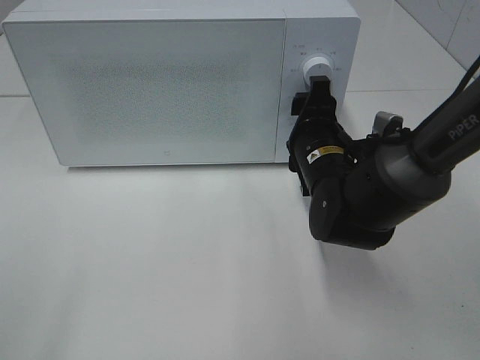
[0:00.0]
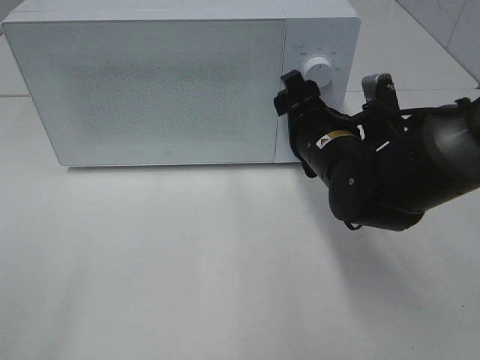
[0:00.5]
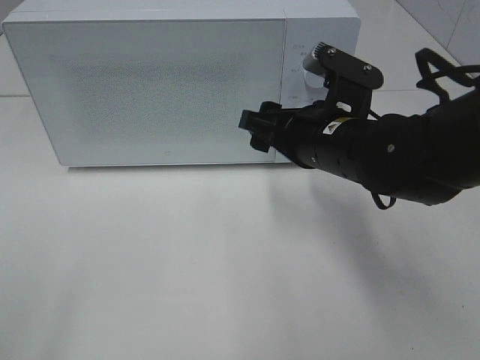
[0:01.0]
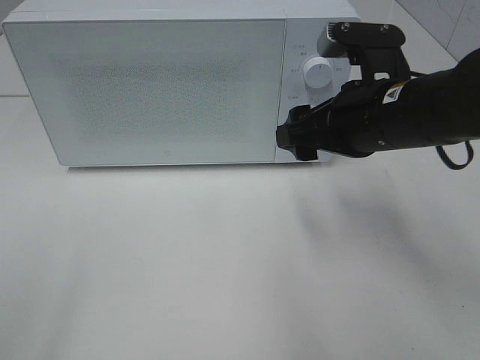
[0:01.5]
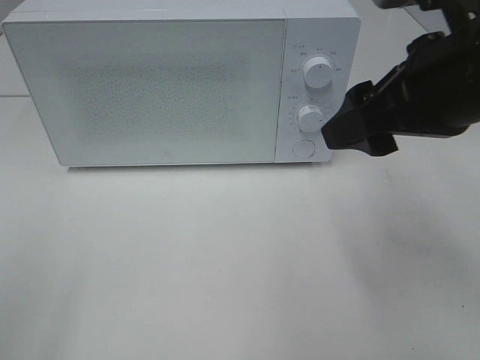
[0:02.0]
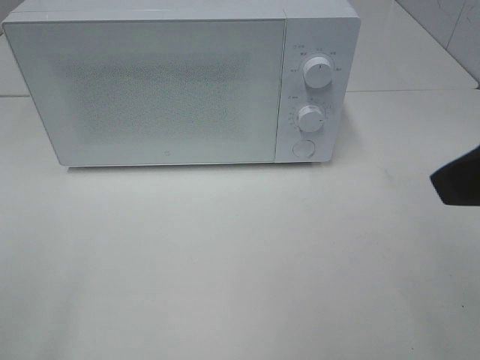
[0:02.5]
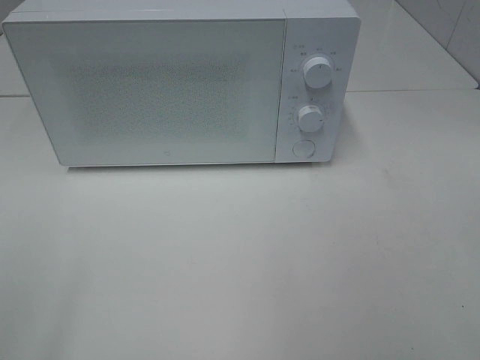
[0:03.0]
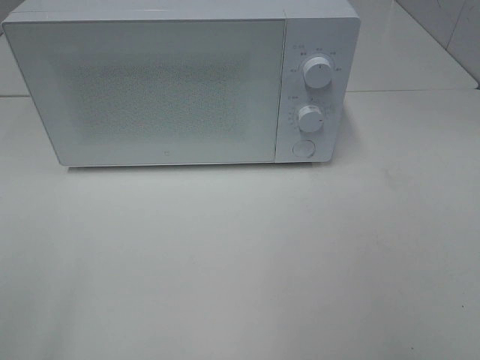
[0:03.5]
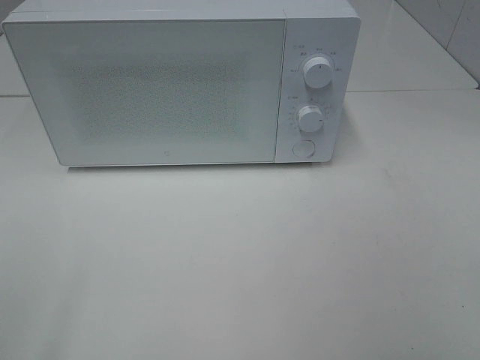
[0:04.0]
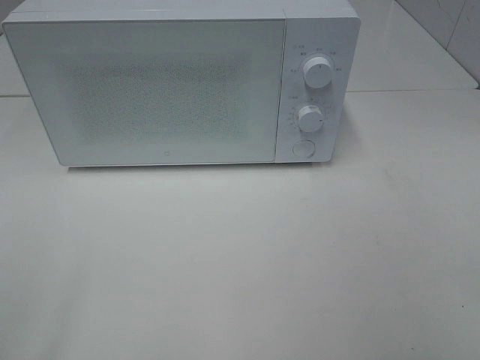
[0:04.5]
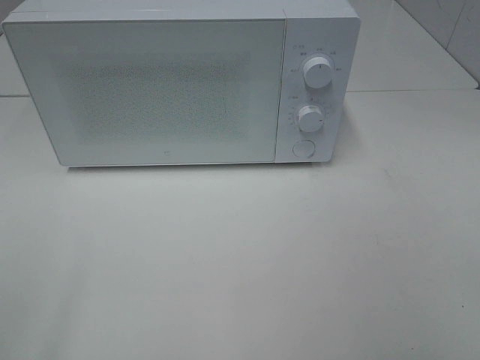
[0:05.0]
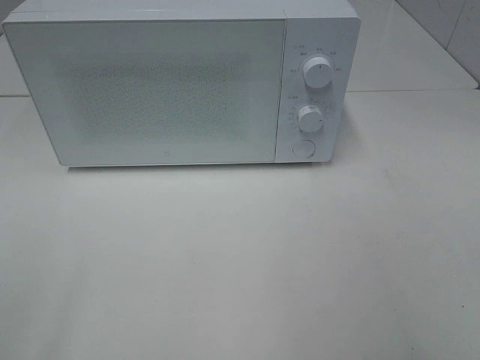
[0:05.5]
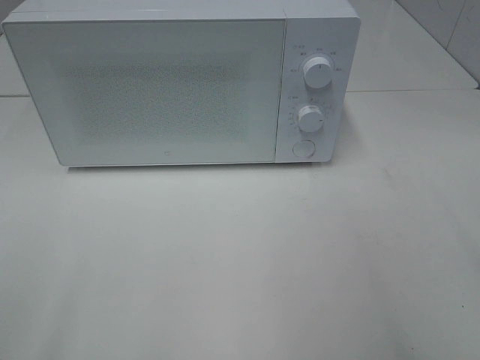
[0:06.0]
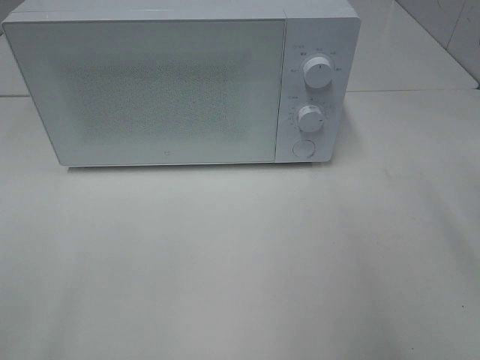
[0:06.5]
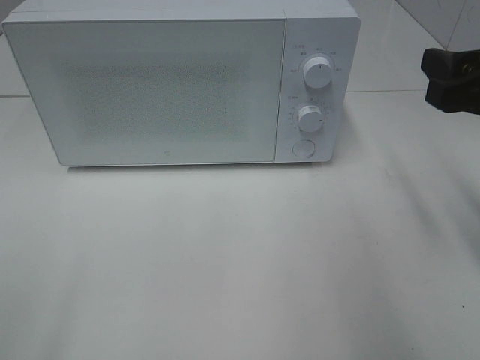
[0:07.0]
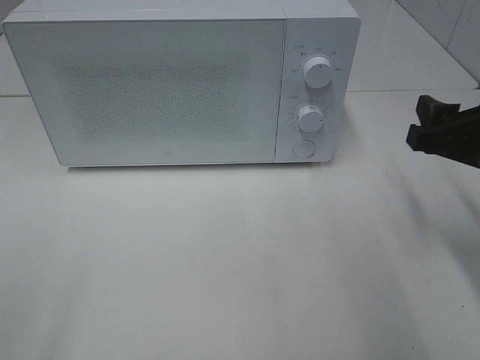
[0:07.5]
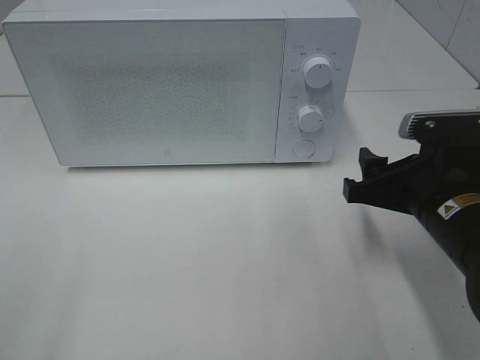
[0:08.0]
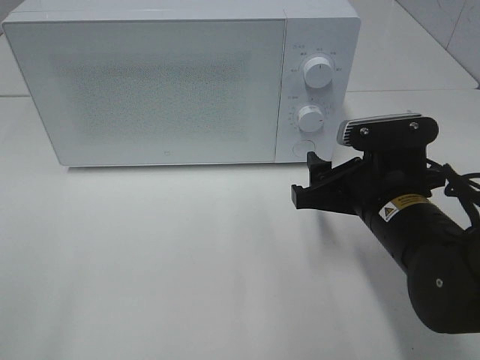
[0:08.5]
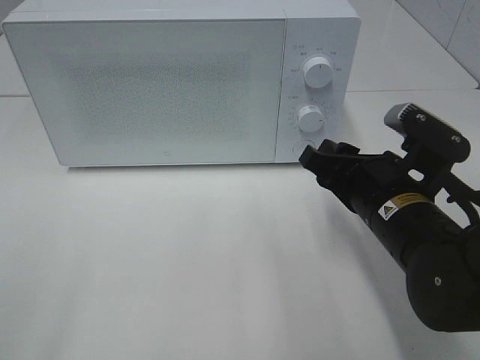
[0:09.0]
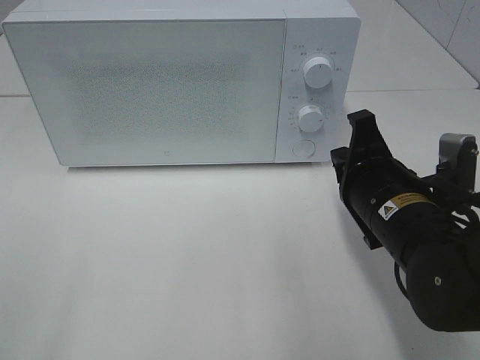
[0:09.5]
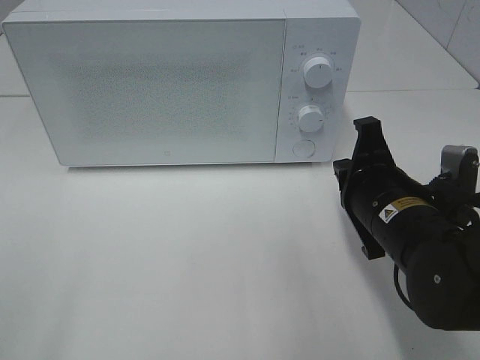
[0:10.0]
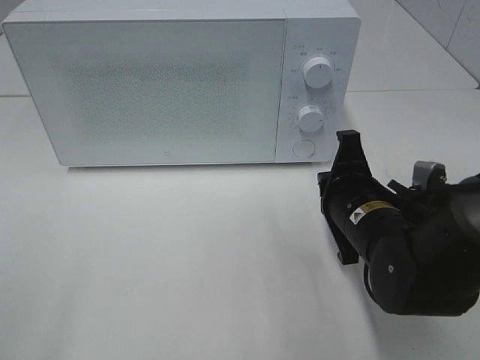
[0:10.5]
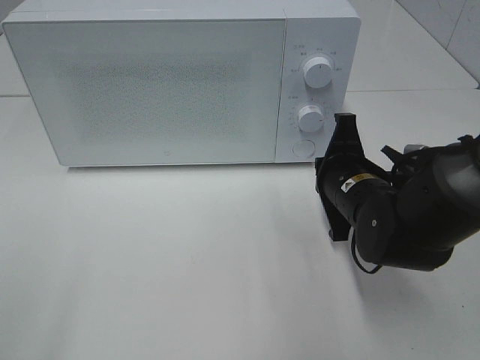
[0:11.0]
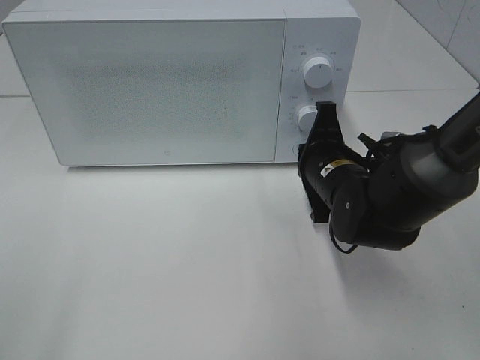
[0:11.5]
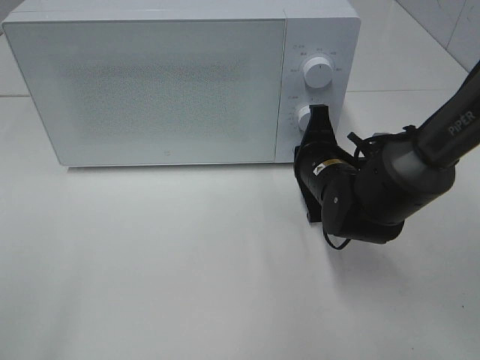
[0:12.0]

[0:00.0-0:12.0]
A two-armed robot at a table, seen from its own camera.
Task of the whole recording: Heat the burger.
0:00.0 to 0:02.0: The right gripper heads upward and backward, covering approximately 20 cm.
0:02.0 to 0:04.0: The right gripper is displaced backward and to the right by about 25 cm.
0:06.0 to 0:08.0: The right gripper shifts roughly 25 cm downward, forward and to the left.
0:08.0 to 0:10.0: The right gripper closes up.
0:10.0 to 0:12.0: The right gripper moves forward, approximately 10 cm.

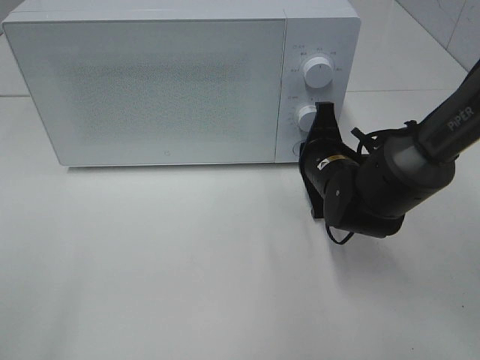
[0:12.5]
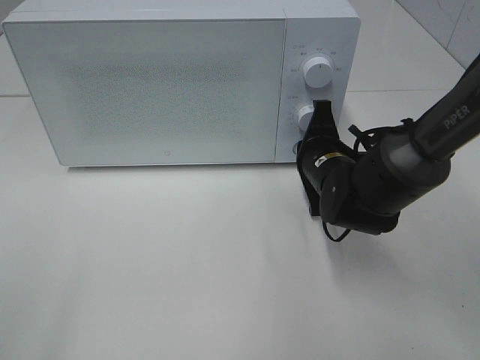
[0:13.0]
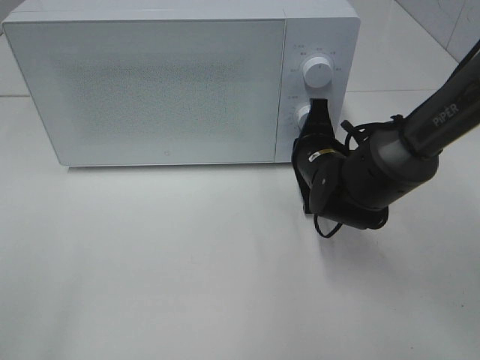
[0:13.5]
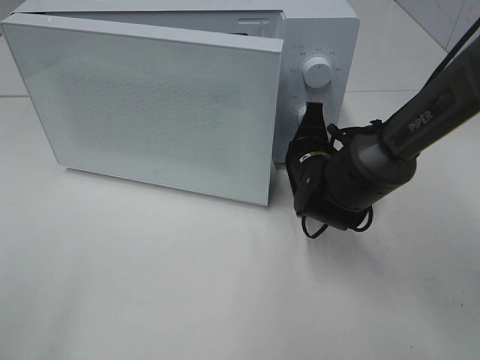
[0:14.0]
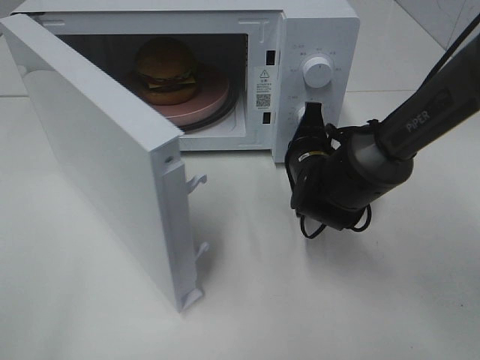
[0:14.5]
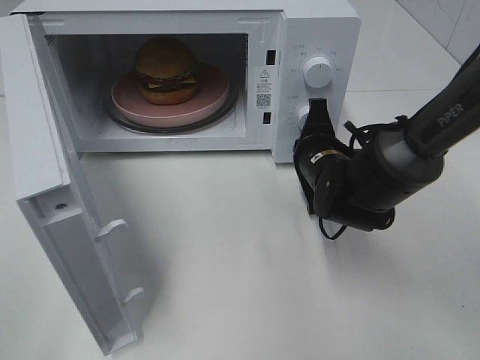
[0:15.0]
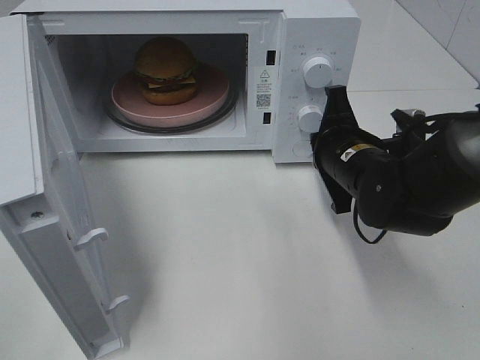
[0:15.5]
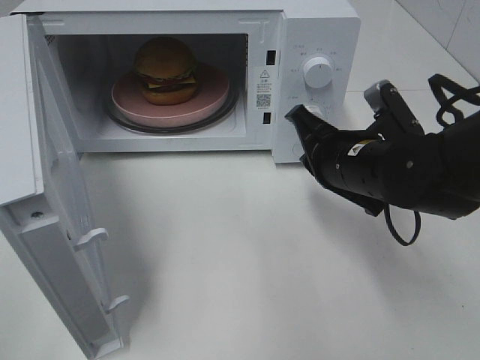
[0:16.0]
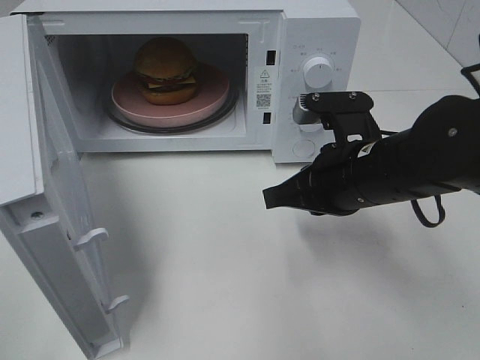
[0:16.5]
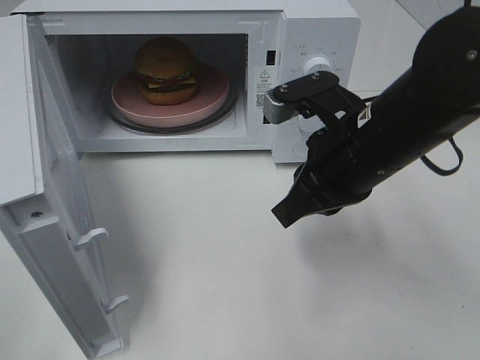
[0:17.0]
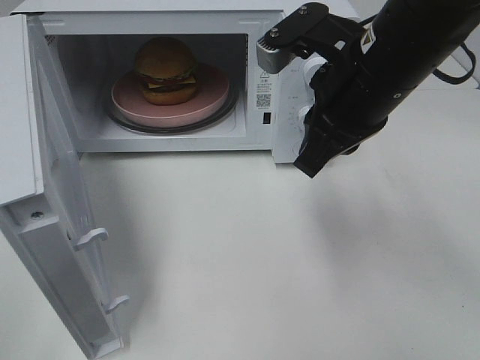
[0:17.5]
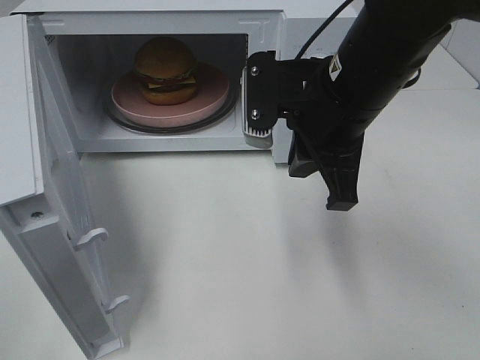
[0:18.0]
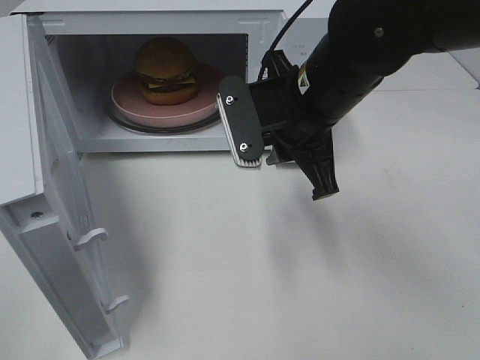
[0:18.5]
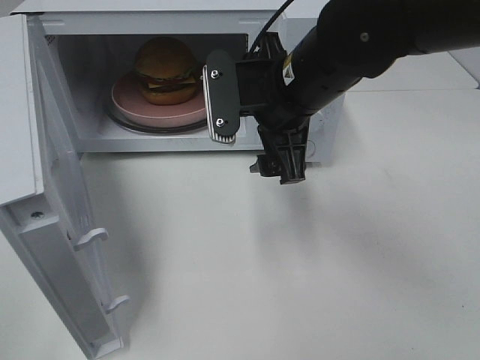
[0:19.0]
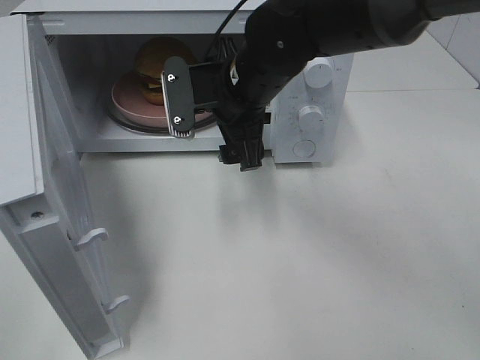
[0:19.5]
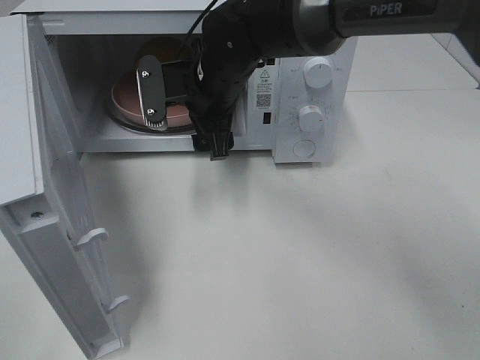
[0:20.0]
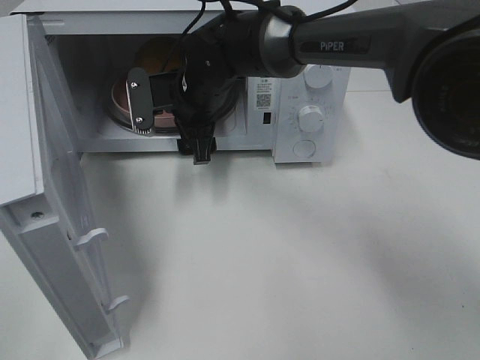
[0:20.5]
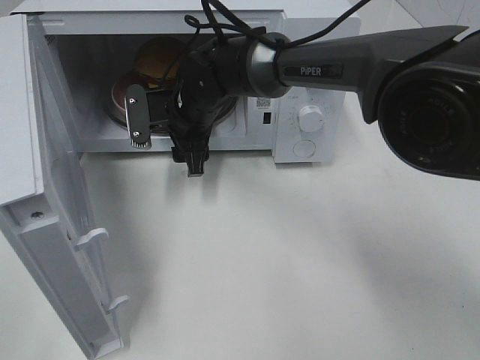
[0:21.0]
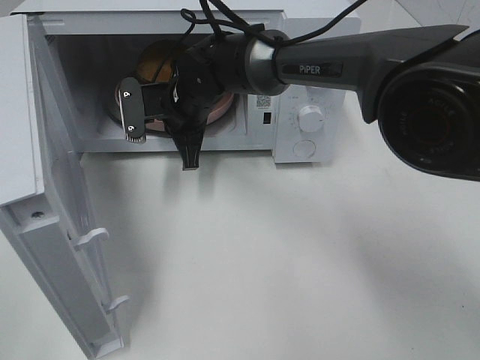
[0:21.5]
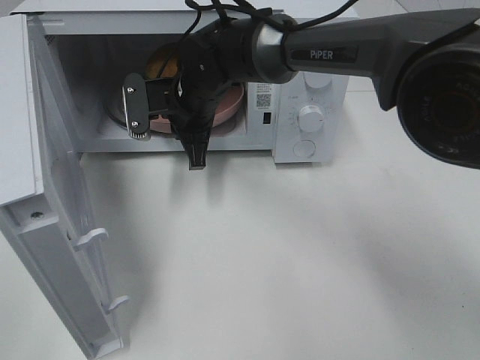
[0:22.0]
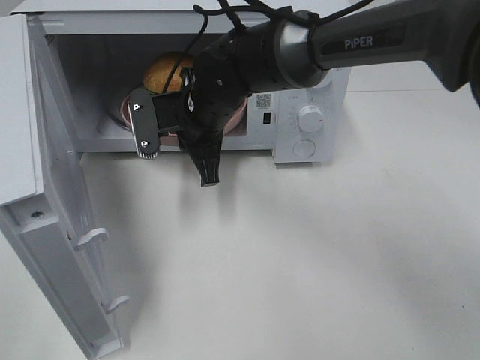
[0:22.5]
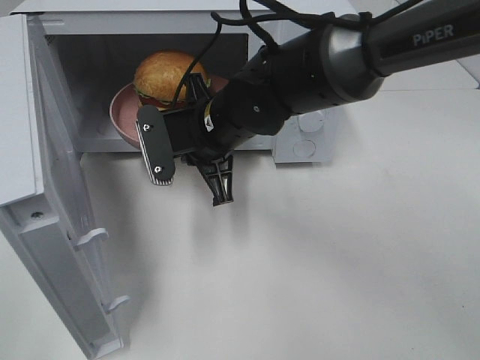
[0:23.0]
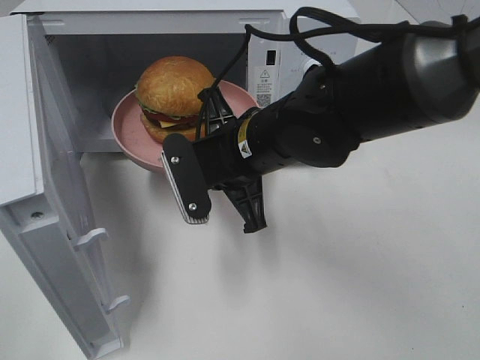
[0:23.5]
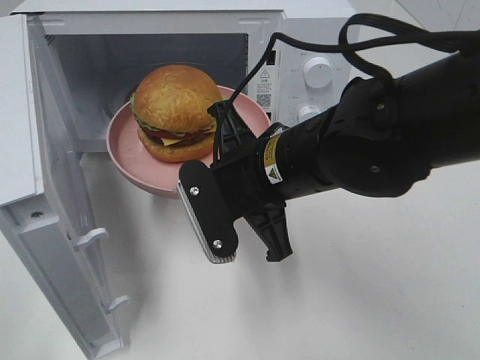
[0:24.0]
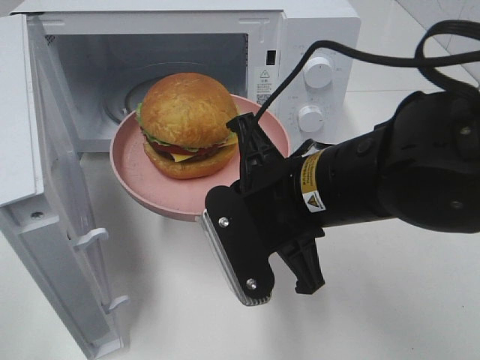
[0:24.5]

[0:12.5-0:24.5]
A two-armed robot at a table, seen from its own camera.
Task of the whole recording: Heat the burger.
Step, 0:12.5 to 0:15.0: Right hand: press the switch.
Step, 0:15.5 to 0:21.5: Right hand: grab the plate with the hamburger.
0:14.5 to 0:16.5: The right gripper shifts approximately 15 cm backward and upward.
0:16.5 to 0:18.5: The right gripper travels upward and to the left by some 10 cm.
0:18.5 to 0:20.5: The right gripper moves forward, to the left and downward, some 20 cm, and opens.
0:20.5 to 0:22.5: The right gripper closes its fingers.
0:22.5 to 0:24.5: The right gripper shifts roughly 20 cm backward and to the right.

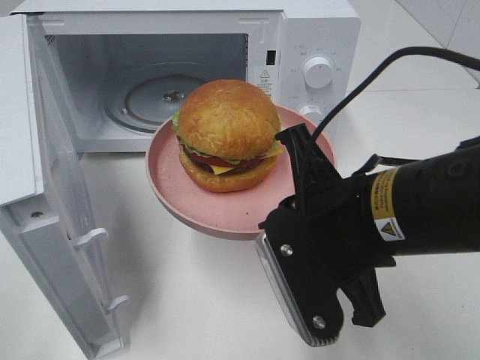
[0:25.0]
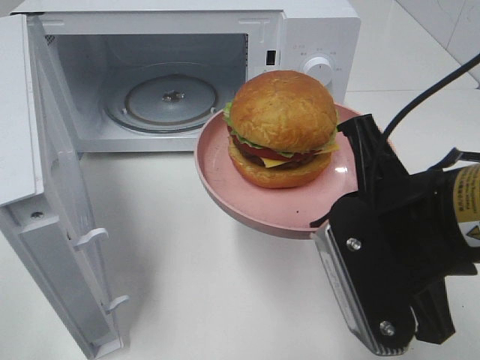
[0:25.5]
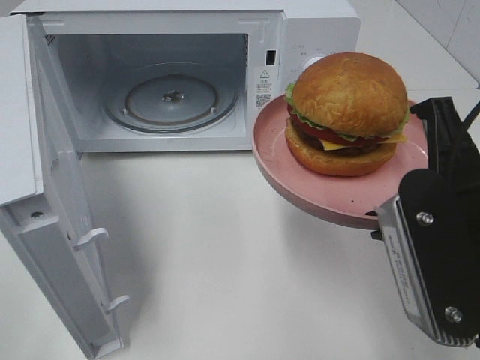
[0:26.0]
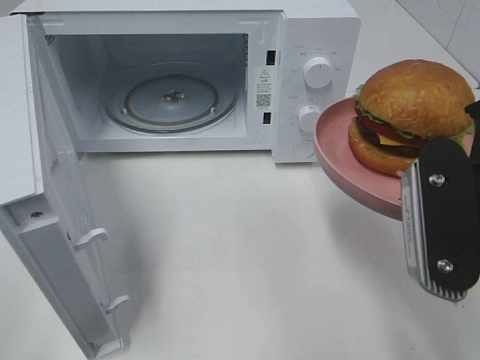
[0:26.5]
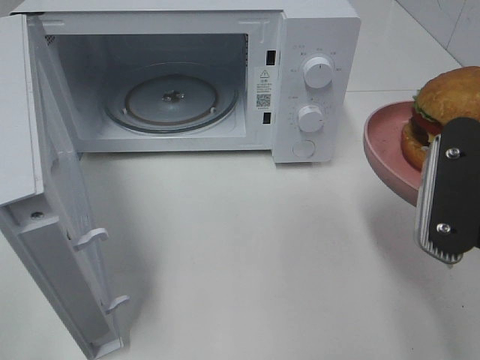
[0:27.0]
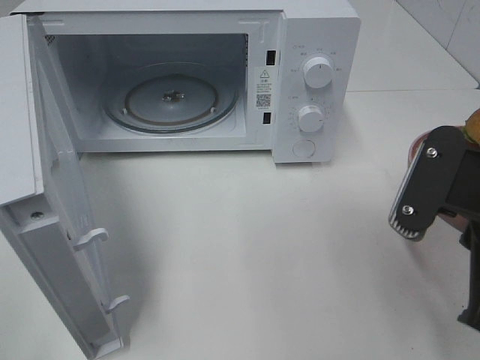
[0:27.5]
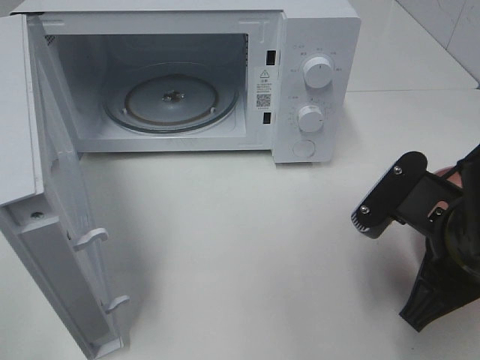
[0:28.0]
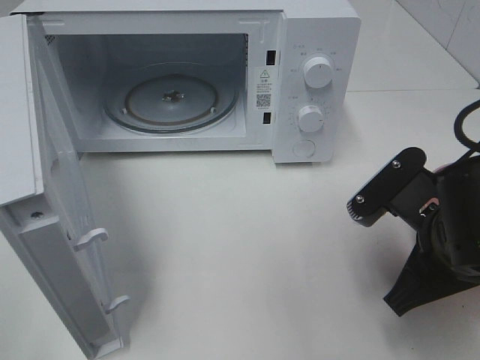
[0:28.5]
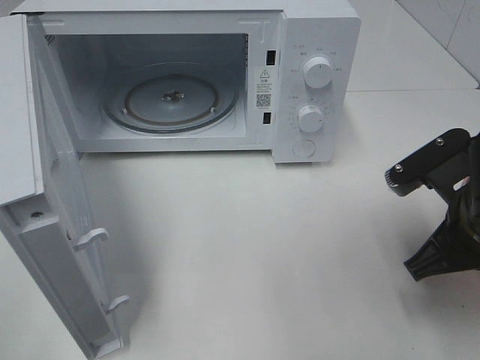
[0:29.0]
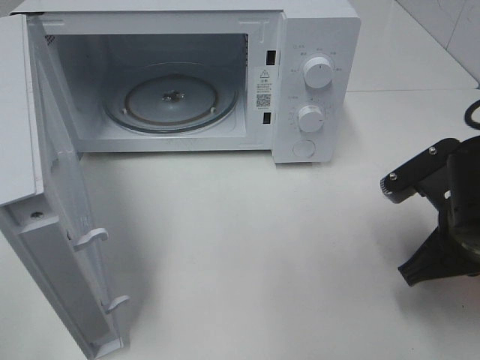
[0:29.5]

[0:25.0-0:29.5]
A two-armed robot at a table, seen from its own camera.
Task of the whole recording: Heat the burger.
0:25.0 to 0:27.0: The right gripper is displaced to the right by some 10 cm.
0:27.0 to 0:29.5: The right gripper goes some 15 cm downward and forward.
